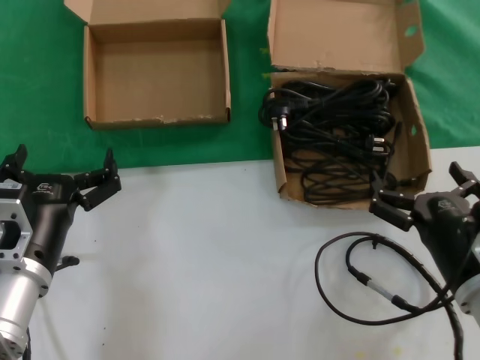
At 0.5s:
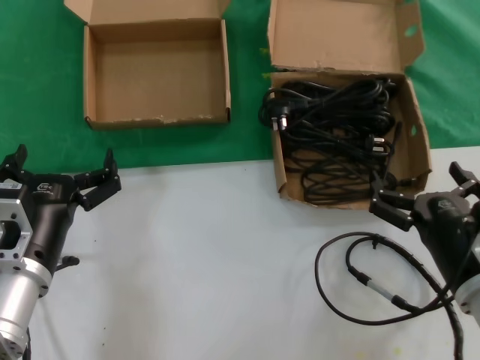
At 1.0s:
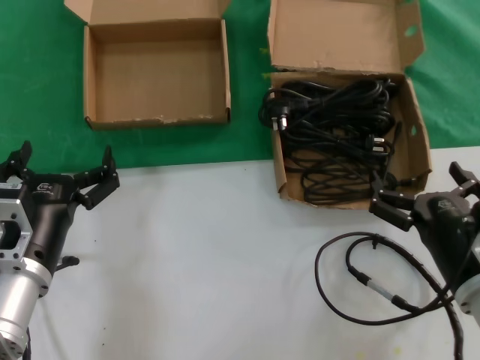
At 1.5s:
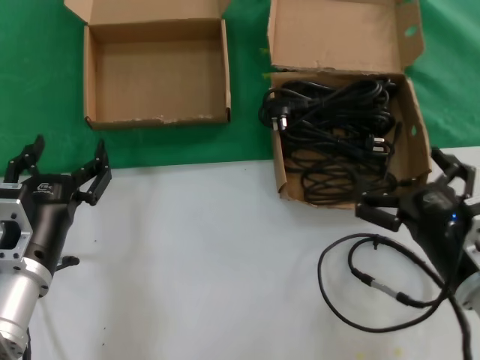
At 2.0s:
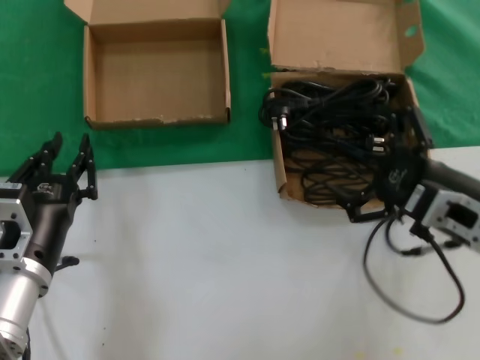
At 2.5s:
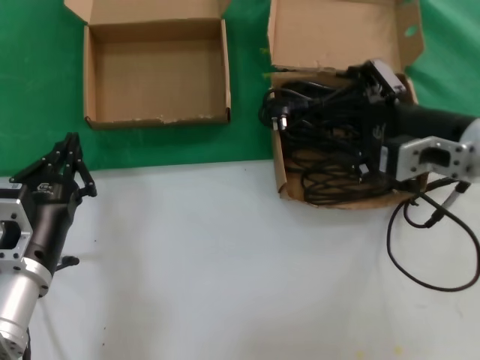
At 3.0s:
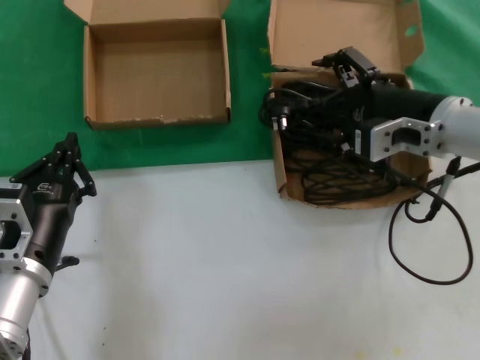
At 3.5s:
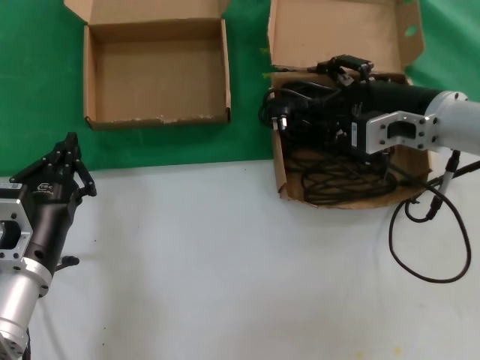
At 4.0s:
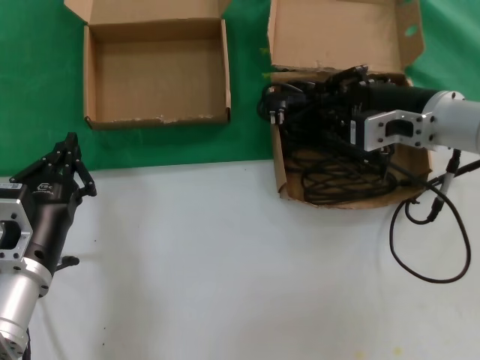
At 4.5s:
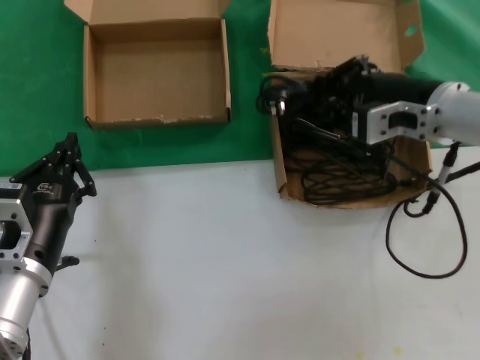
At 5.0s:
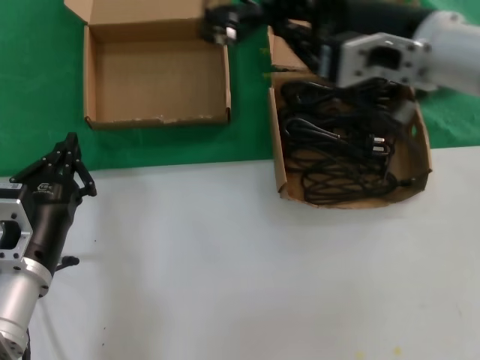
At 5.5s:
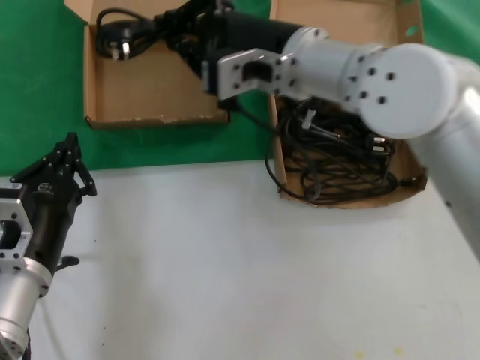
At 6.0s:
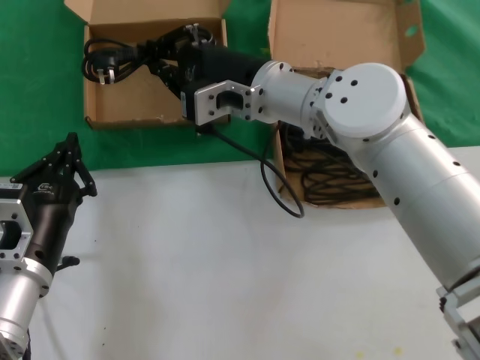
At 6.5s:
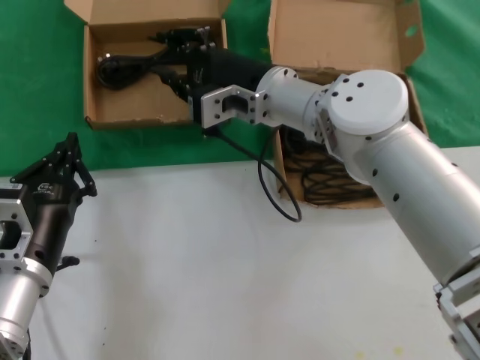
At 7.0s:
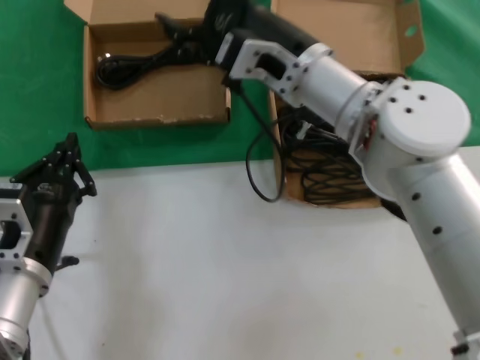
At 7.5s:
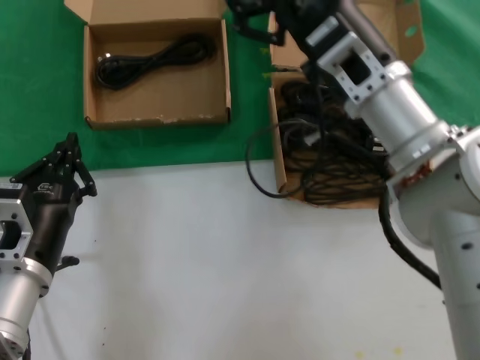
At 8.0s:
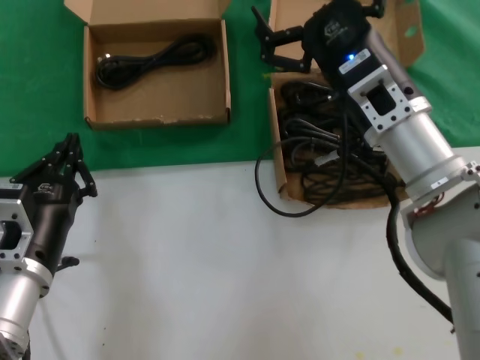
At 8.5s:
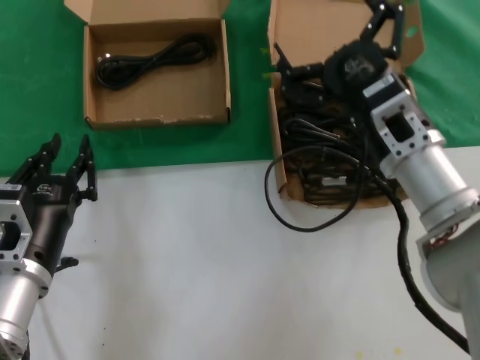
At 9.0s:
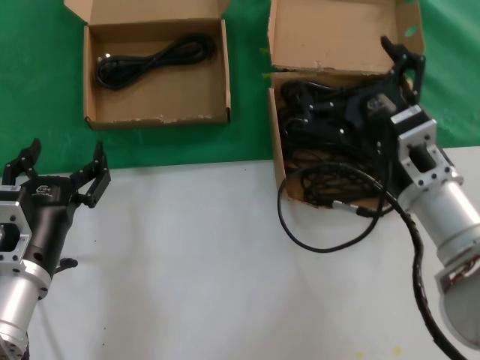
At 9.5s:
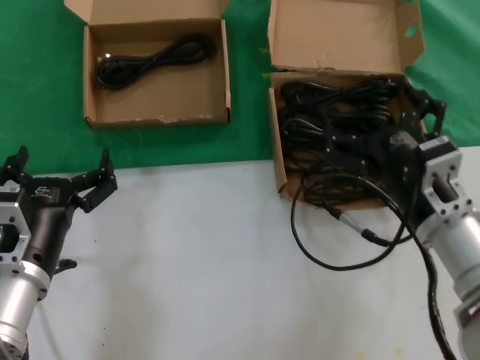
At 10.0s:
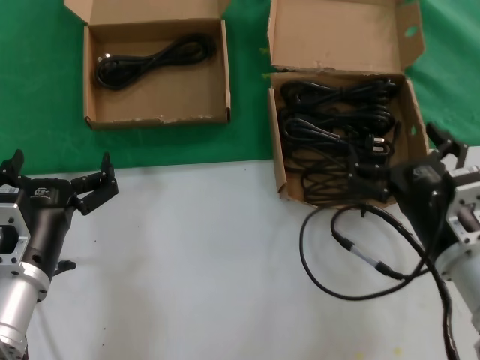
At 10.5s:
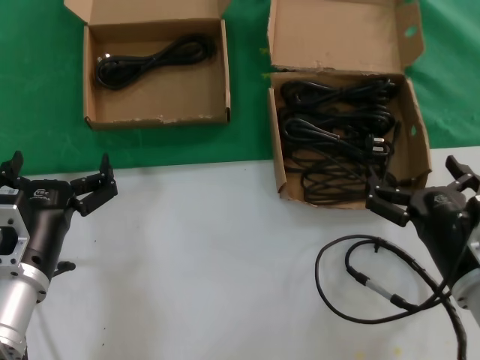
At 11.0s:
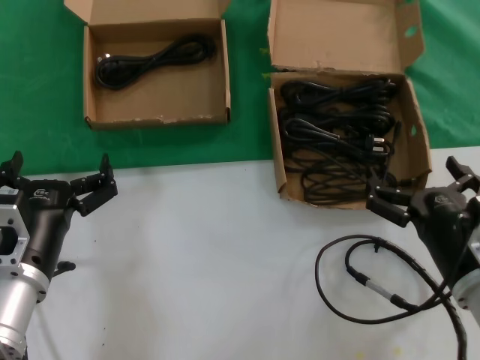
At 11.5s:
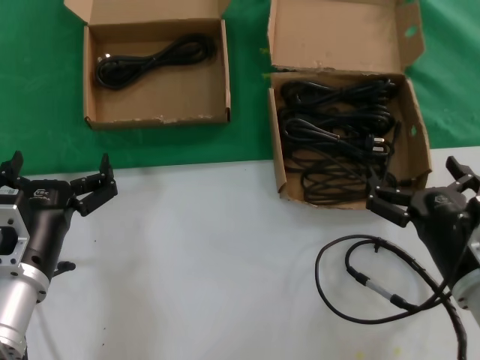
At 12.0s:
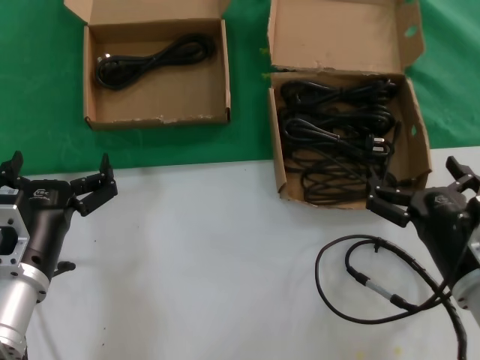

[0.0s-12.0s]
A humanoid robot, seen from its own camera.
Task of the whole recording: take the parts from the box containing them and put them into an empty box.
Step, 0.0s to 4.0s: Grasp the data cable.
Step, 4.5s to 6.0s: Place the data cable in the another box.
0.0s to 2.0s: The right hand shifts some 10 cm upward.
2.0s to 4.0s: The right hand is displaced forward and upward by roughly 15 cm.
4.0s to 6.0s: The right hand heads to the left, covering about 20 cm.
6.0s to 8.0s: The right hand heads to the right and backward, covering roughly 15 cm.
8.0s to 10.0s: The right hand moves downward, backward and to the right, roughly 15 cm.
10.0s to 12.0s: The hands stay close to where they were, moving slightly.

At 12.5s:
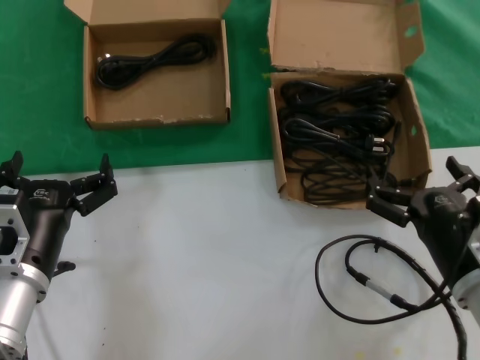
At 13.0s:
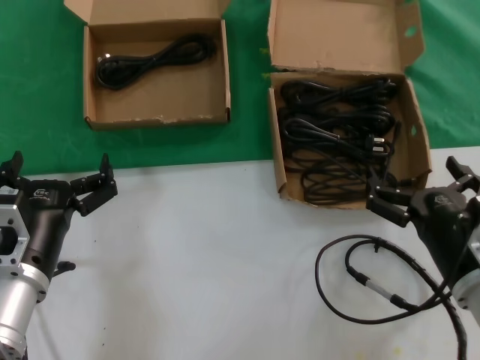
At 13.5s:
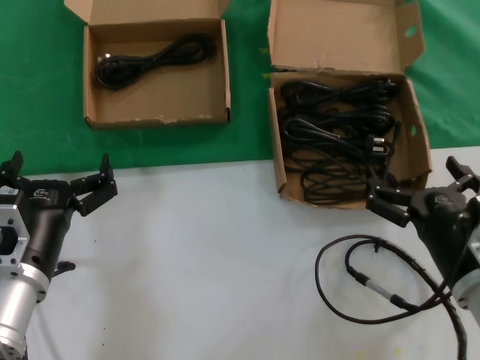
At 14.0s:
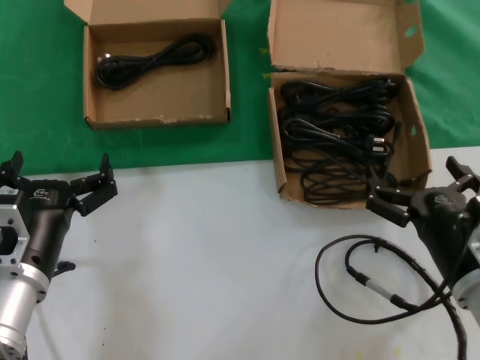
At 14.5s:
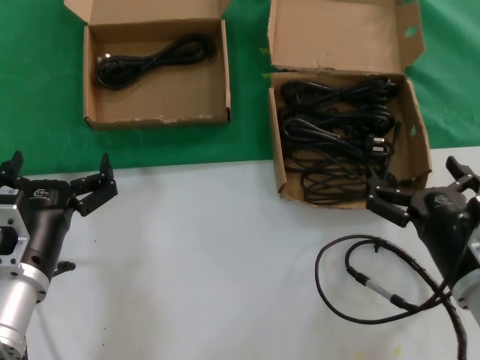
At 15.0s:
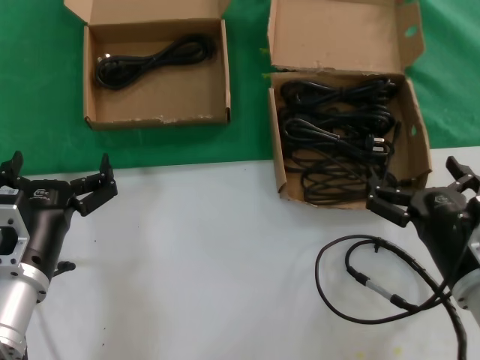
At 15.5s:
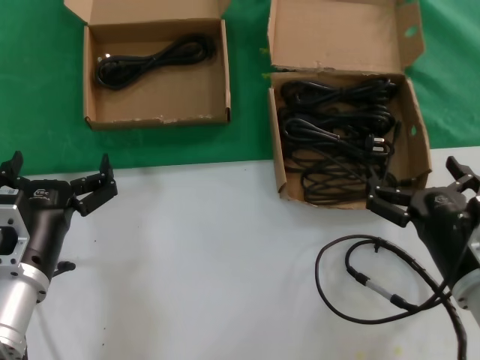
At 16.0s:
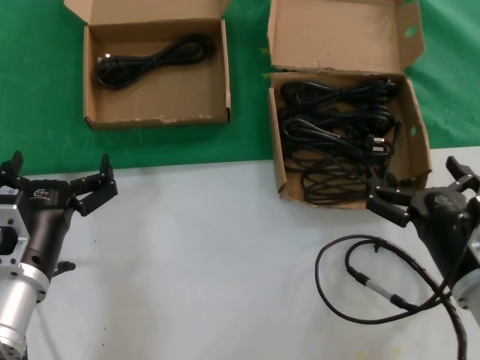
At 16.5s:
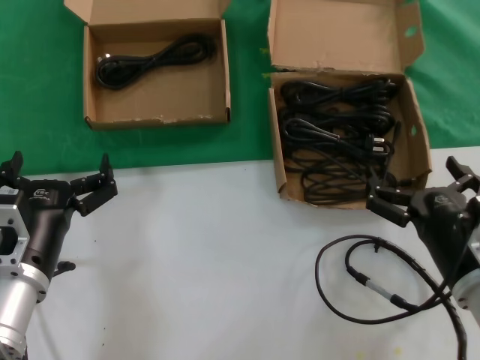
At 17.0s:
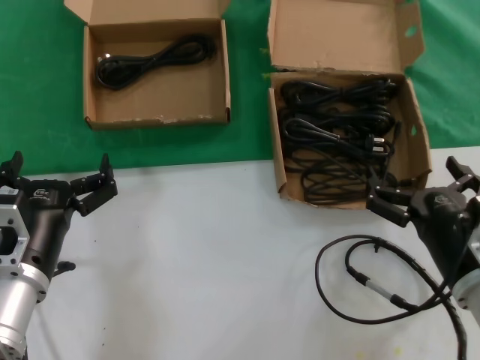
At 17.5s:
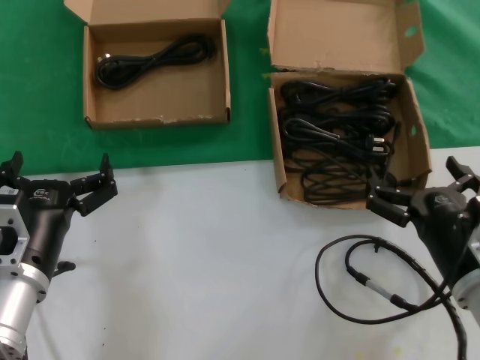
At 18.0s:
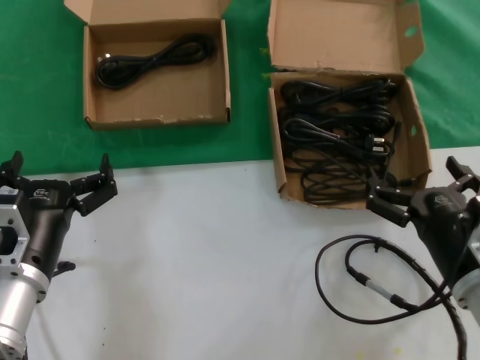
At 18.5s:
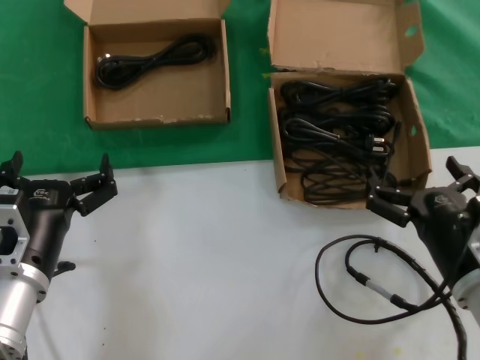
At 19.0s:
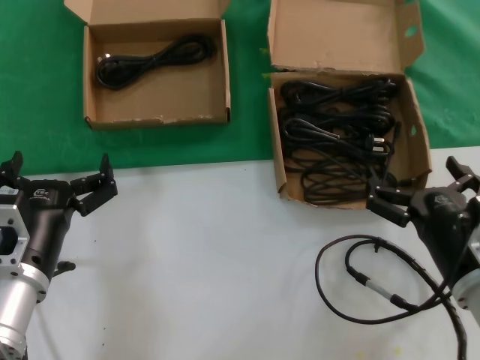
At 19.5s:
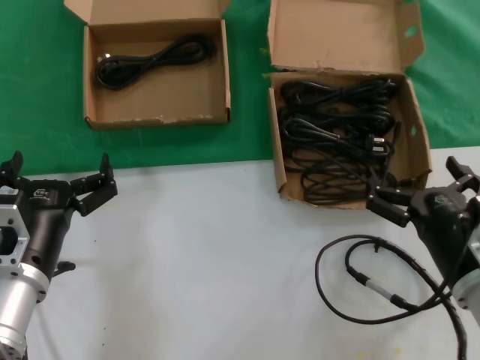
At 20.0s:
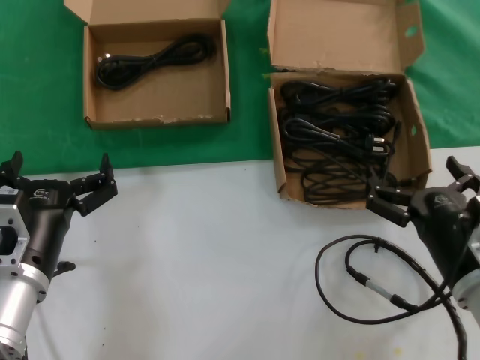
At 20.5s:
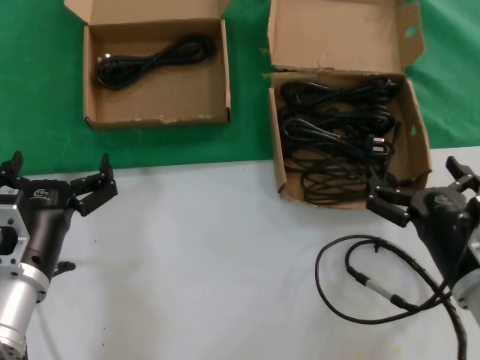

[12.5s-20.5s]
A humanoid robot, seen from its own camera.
Task of the whole recording: take the parts from the box containing them and put them into an empty box.
12.5s to 20.5s: Both hands stay put.

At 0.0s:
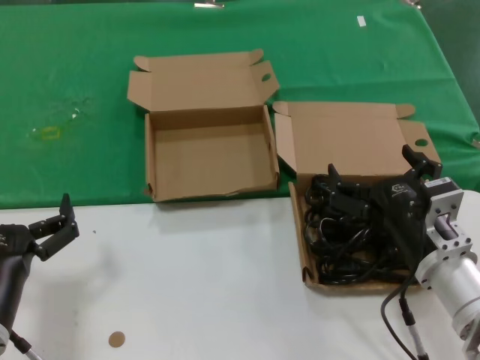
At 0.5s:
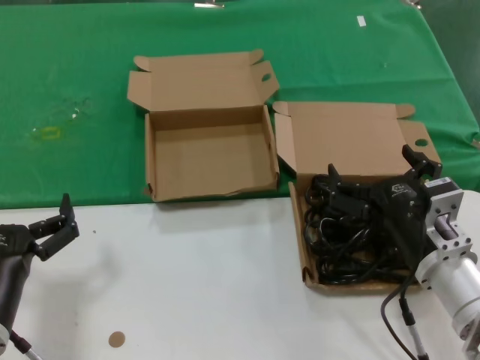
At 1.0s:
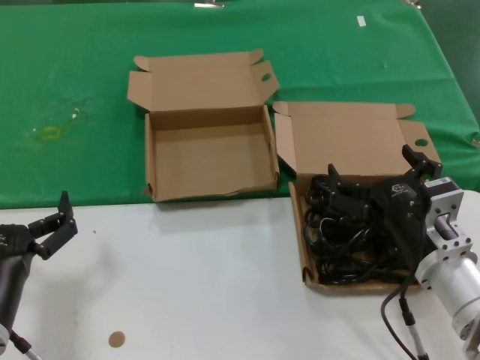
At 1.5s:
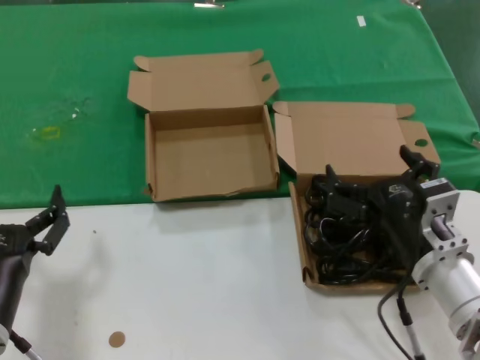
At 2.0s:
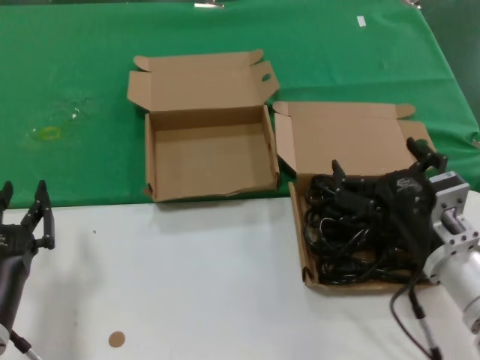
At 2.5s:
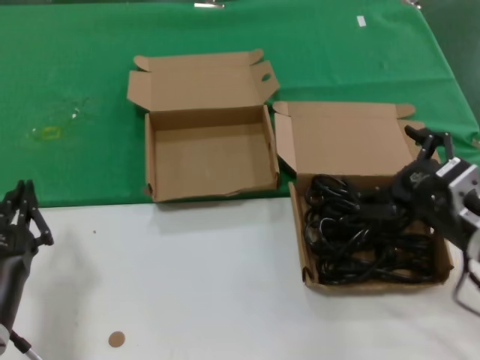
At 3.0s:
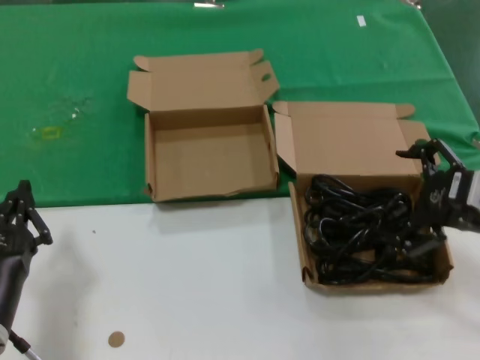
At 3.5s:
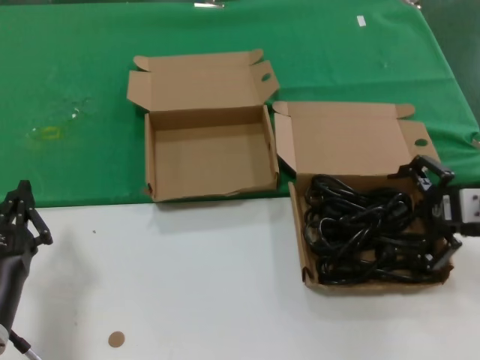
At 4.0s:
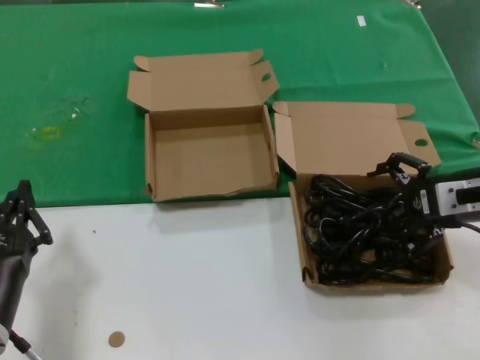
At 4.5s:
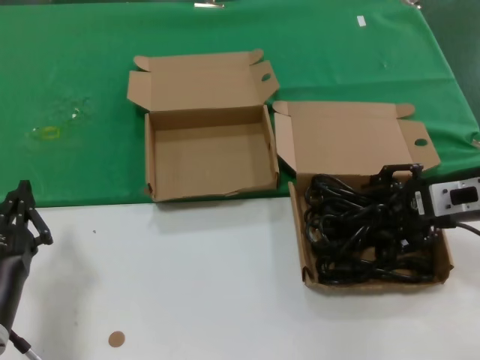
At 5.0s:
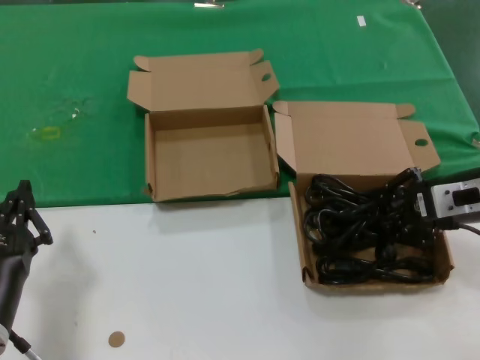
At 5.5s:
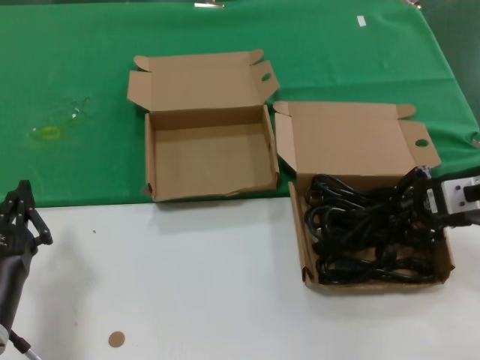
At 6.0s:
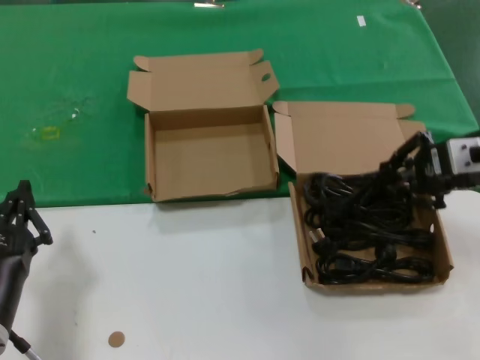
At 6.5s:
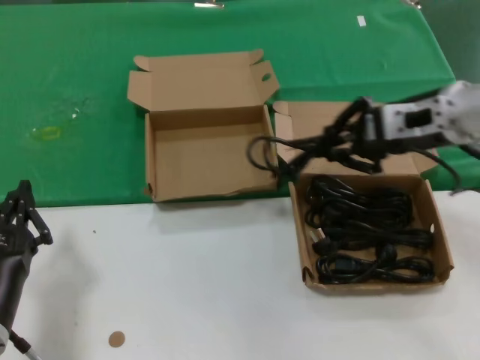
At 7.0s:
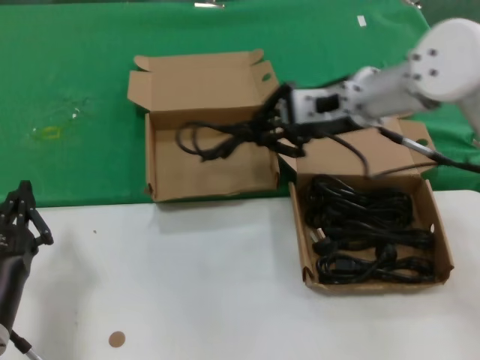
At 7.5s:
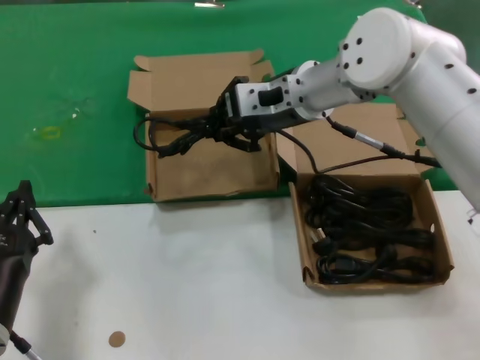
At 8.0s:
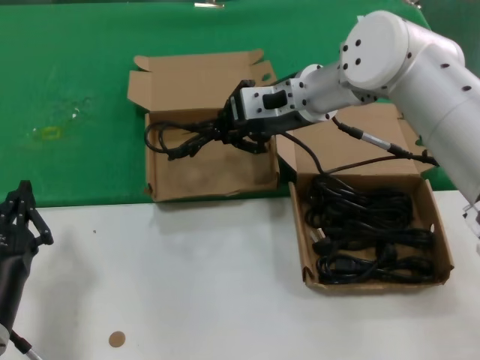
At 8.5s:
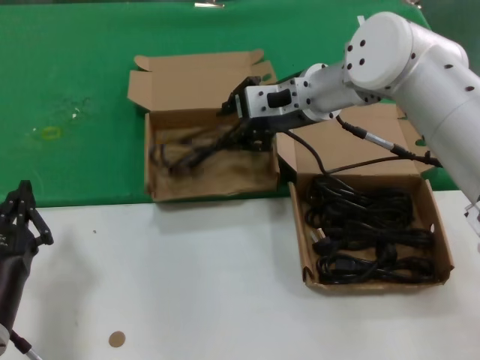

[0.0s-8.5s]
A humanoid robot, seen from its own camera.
Task of the whole recording: take the parts from the box containing them and put them into an empty box.
Step, 0.0s to 5.0s: Grasp the data cable.
Step, 5.5s to 8.5s: Place the data cable in the another box.
0.0s to 2.0s: The two hands keep their place.
2.0s to 4.0s: The right hand travels to the right, upward and forward by about 20 cm.
4.0s to 6.5s: The right hand travels upward and to the left by some 10 cm.
6.5s to 8.5s: The right hand heads to the left and forward, covering roughly 20 cm.
